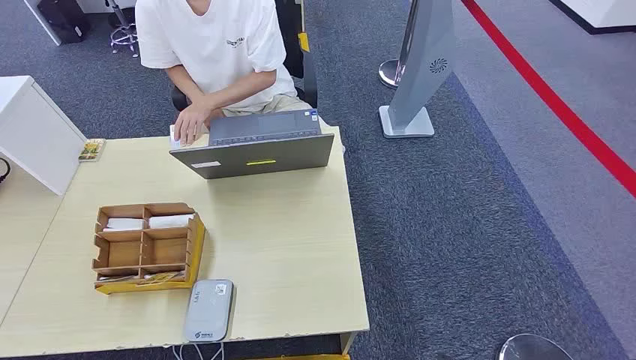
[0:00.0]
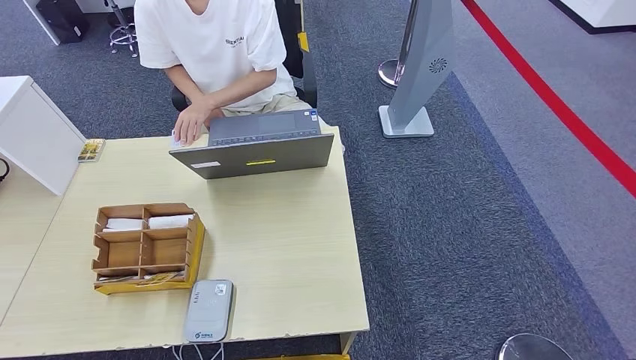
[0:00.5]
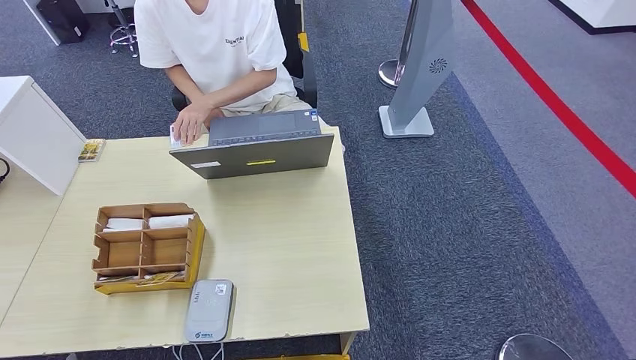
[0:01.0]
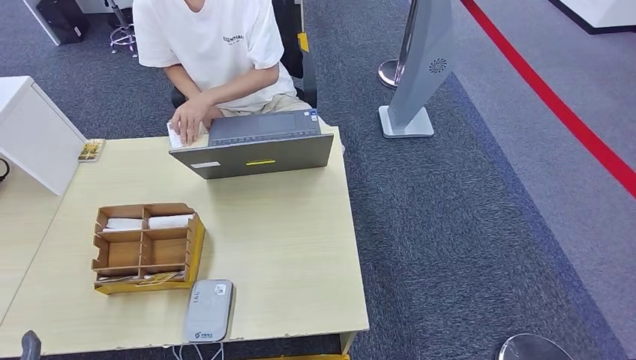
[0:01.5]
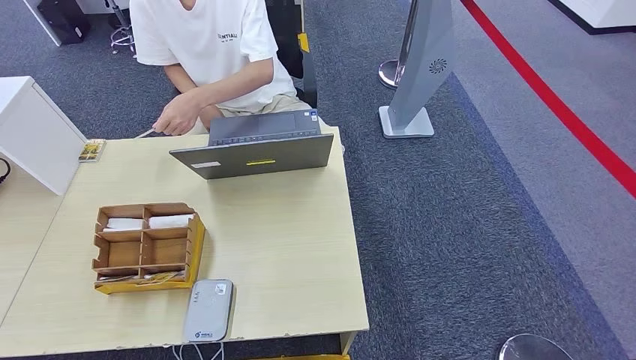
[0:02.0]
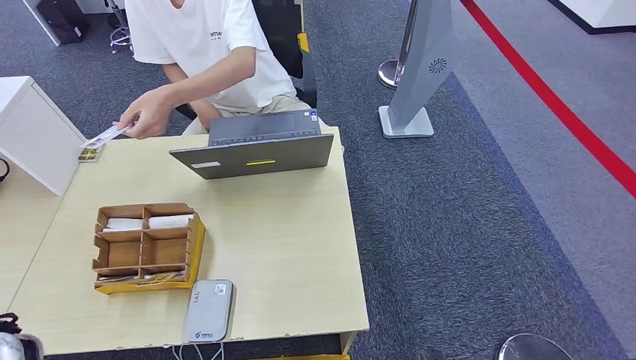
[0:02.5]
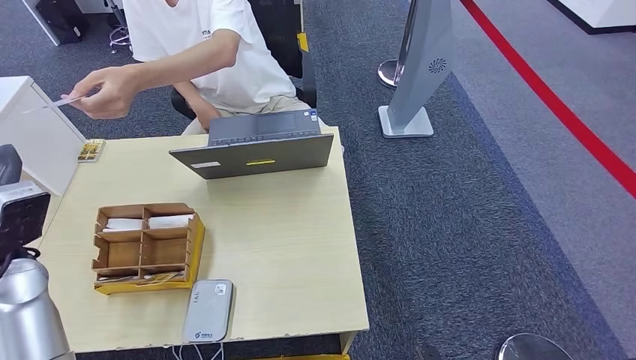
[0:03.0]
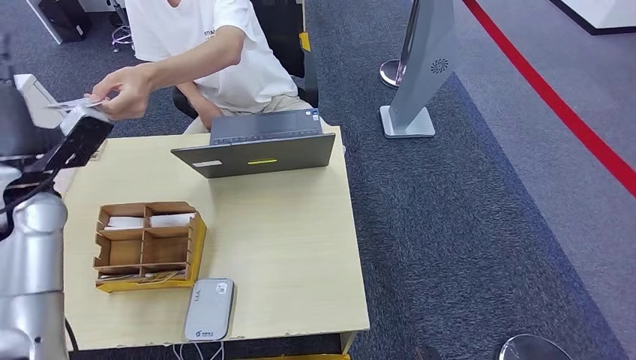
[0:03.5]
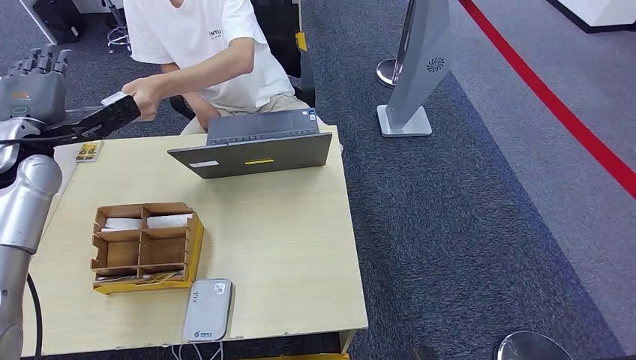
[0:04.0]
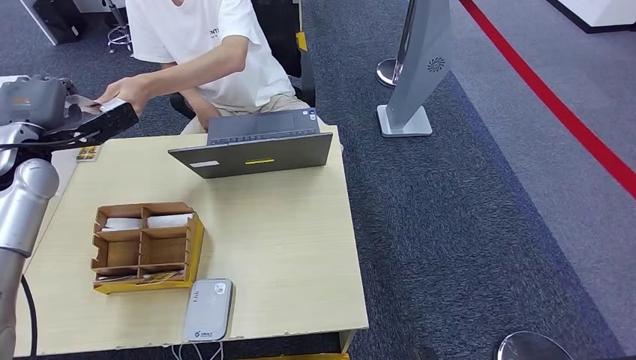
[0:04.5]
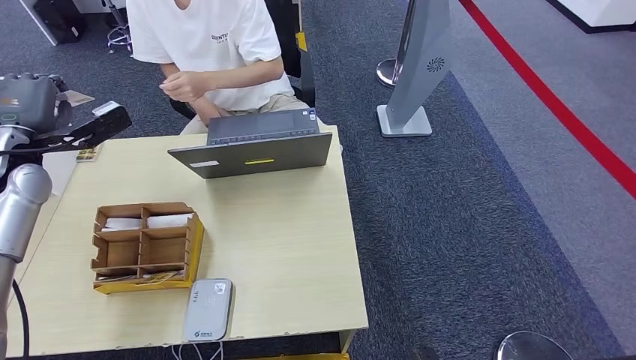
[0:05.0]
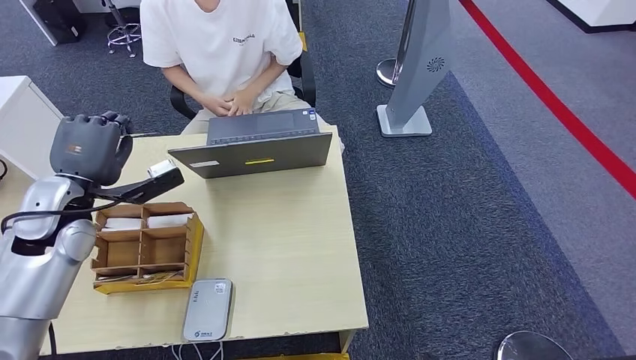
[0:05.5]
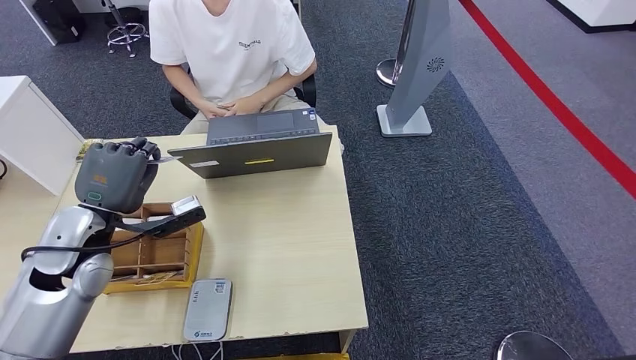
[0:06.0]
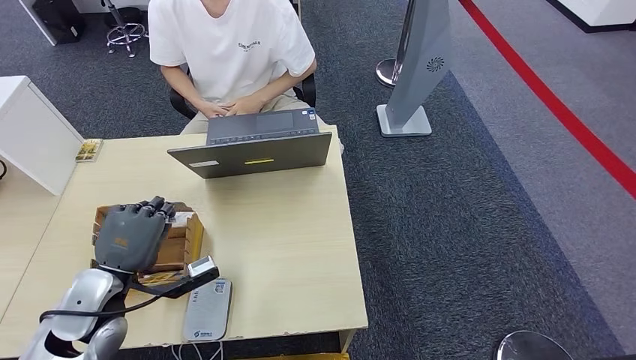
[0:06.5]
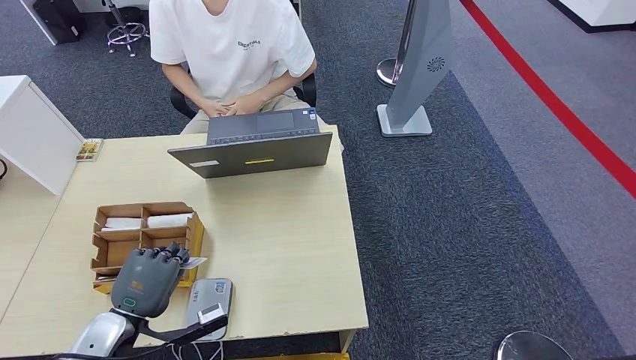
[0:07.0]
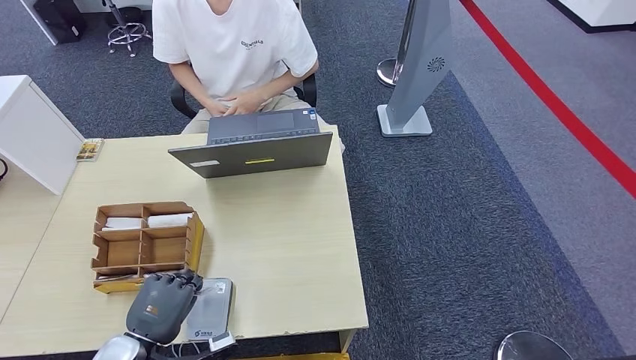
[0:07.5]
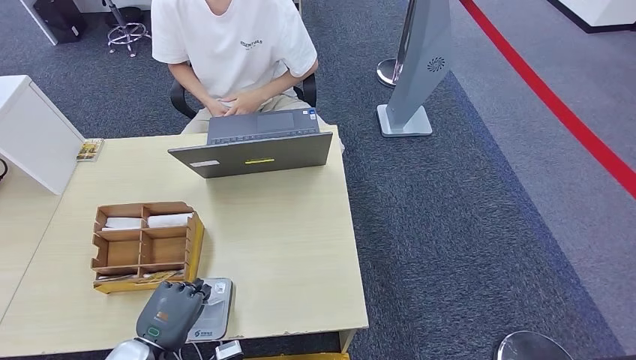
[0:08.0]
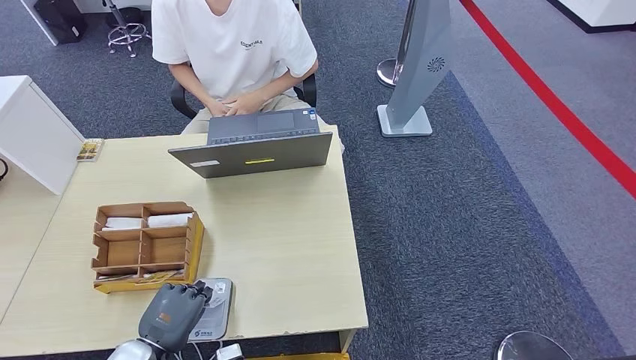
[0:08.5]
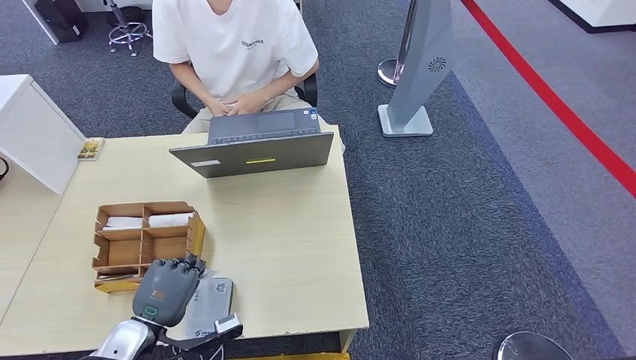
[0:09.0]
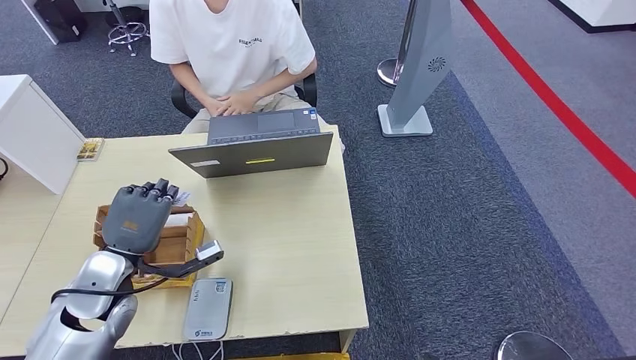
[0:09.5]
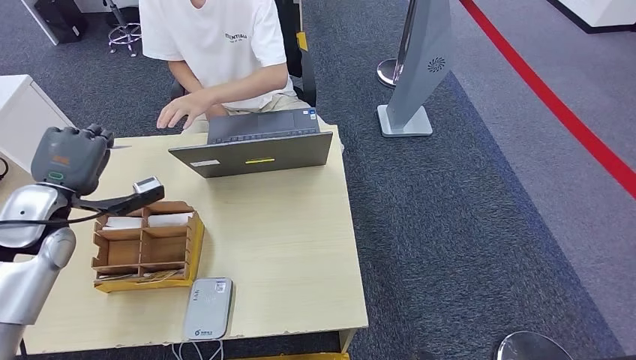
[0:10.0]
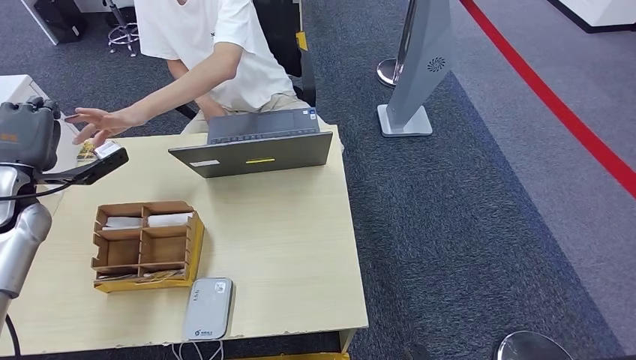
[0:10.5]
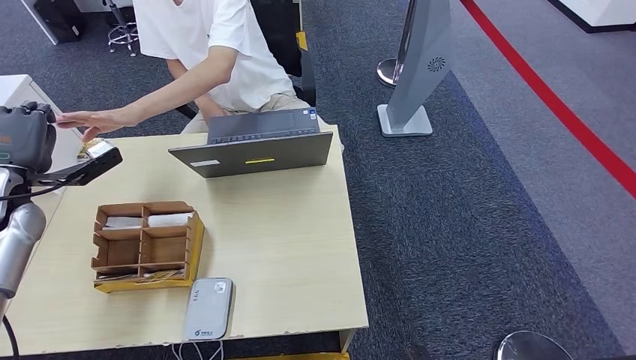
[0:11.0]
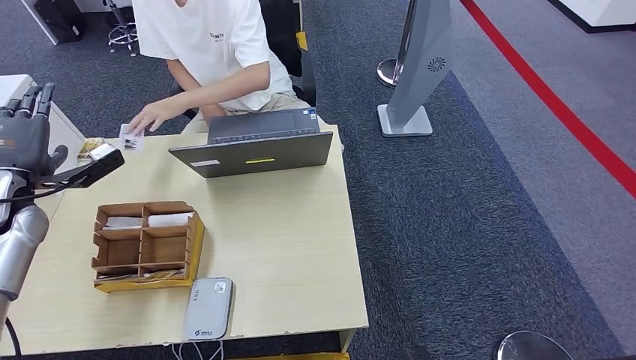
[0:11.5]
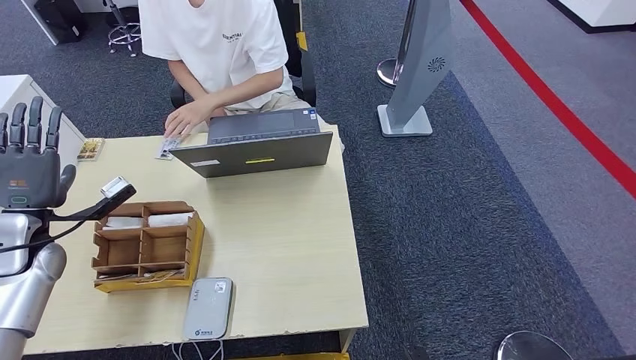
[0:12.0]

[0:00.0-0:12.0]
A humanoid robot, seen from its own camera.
Step, 0:00.0 to 0:05.0: Take the ID card from the person's hand.
Step, 0:05.5 to 0:08.5: Place the ID card on the card reader.
Step, 0:09.0 to 0:11.0: Hand the ID card to the person.
0:04.0 to 0:06.0: The left hand moves backward, downward and to the right, about 15 cm.
0:06.0 to 0:08.0: The left hand shifts about 25 cm backward and downward.
0:08.0 to 0:10.0: The left hand heads forward, upward and to the left, covering some 30 cm.
0:10.0 to 0:12.0: The left hand travels to the left by some 5 cm.

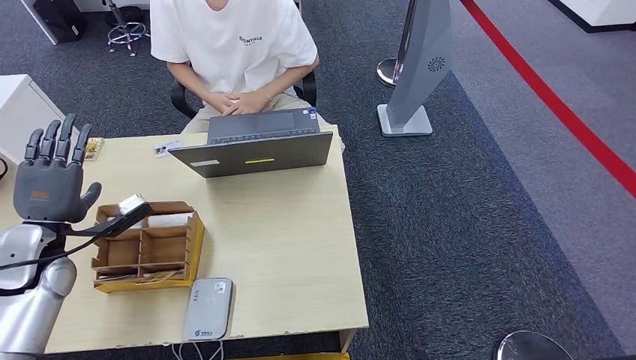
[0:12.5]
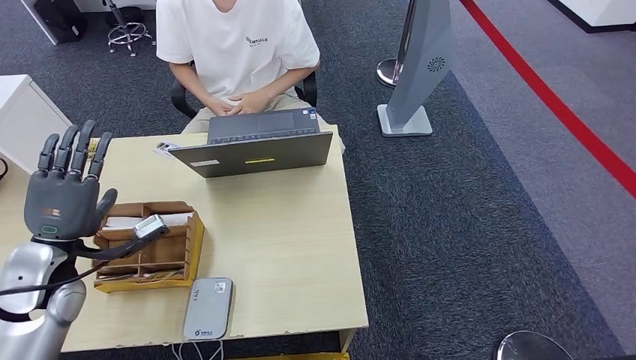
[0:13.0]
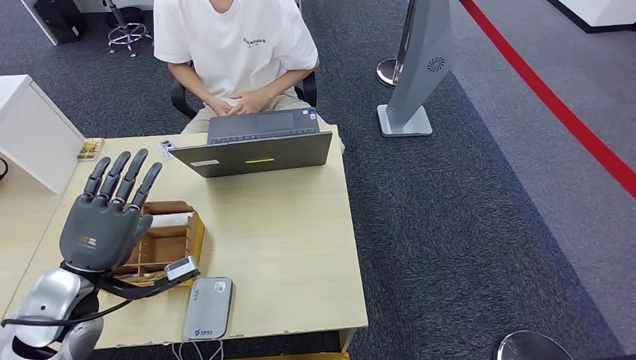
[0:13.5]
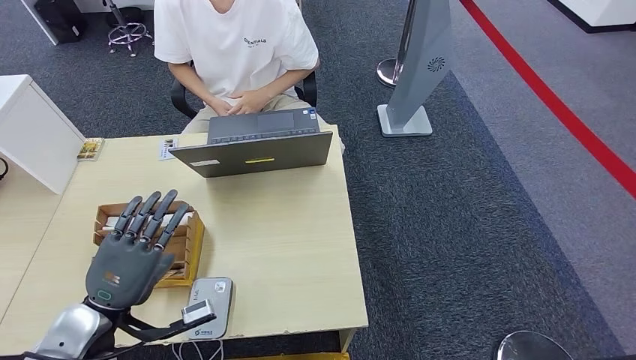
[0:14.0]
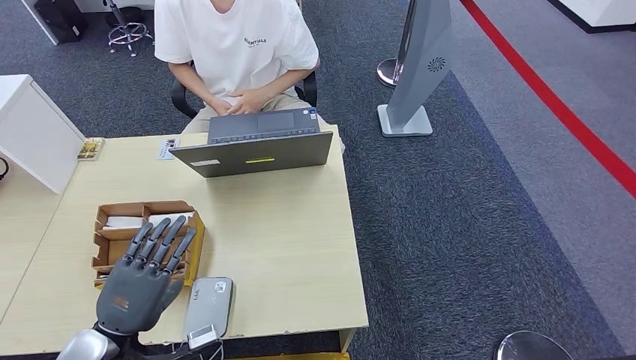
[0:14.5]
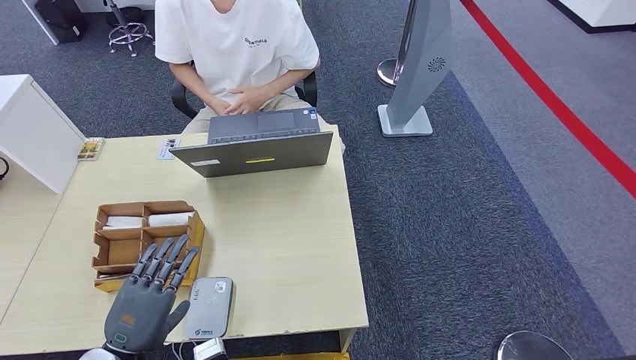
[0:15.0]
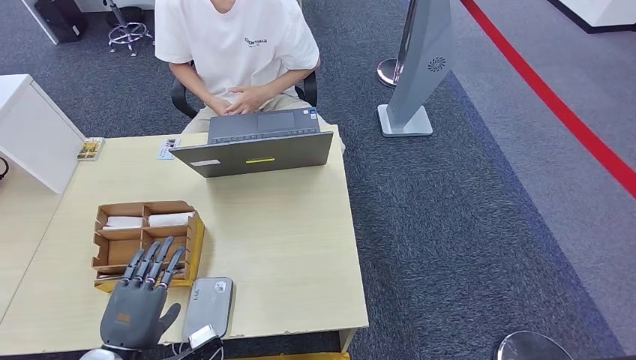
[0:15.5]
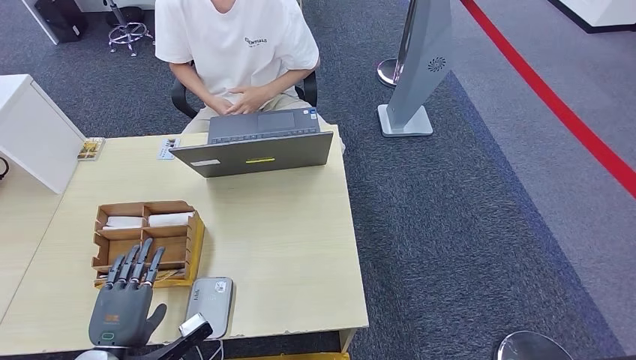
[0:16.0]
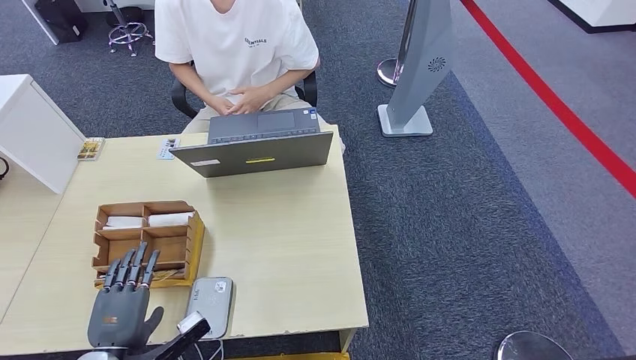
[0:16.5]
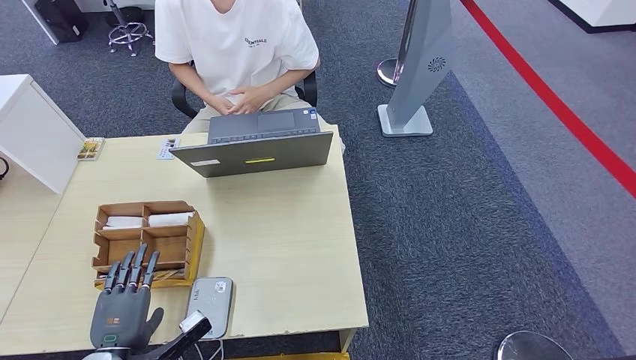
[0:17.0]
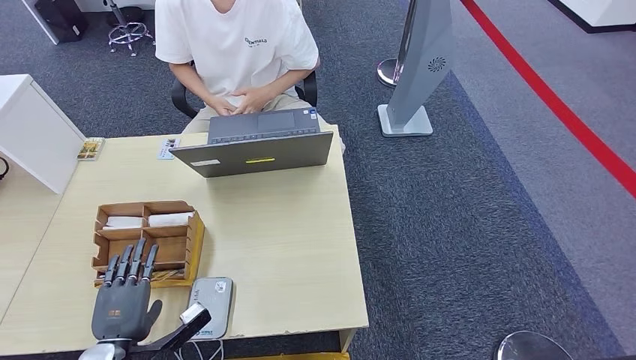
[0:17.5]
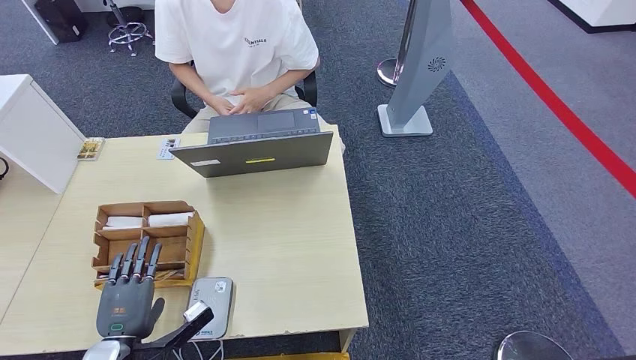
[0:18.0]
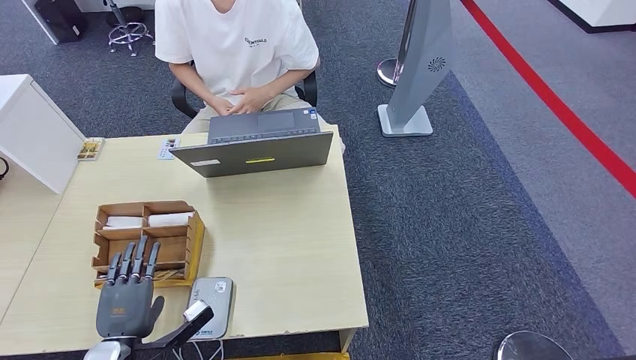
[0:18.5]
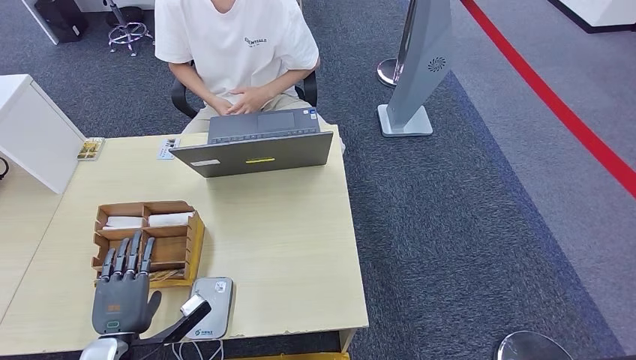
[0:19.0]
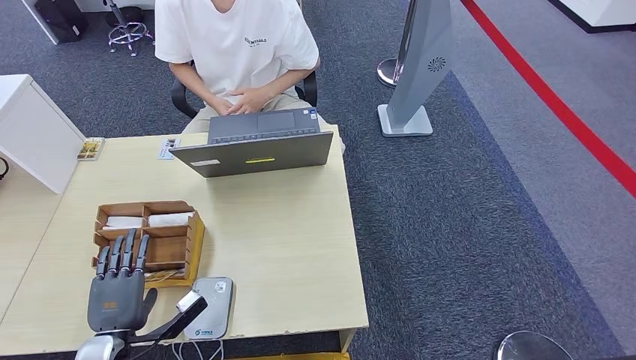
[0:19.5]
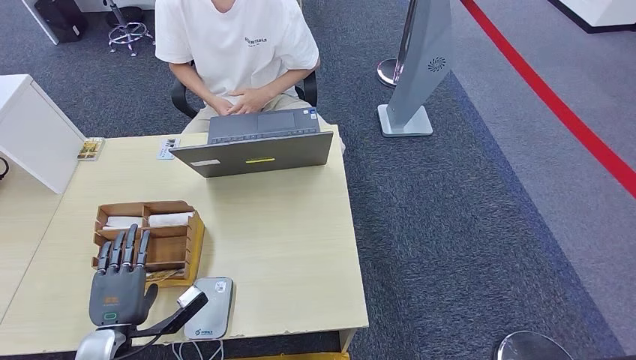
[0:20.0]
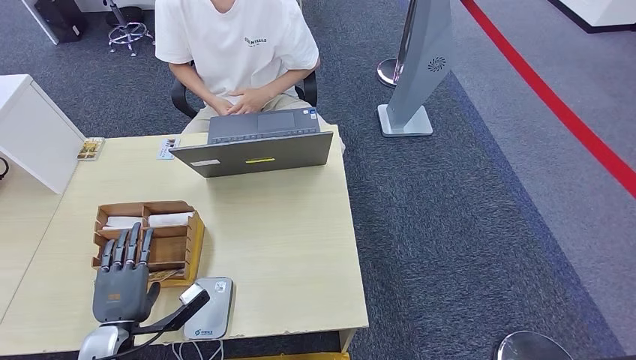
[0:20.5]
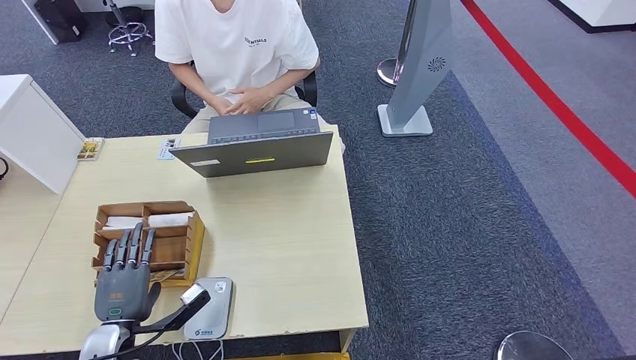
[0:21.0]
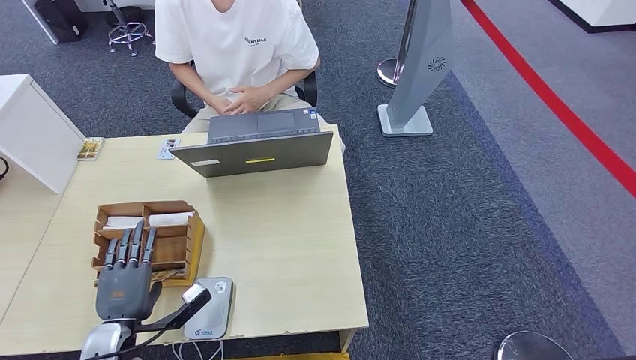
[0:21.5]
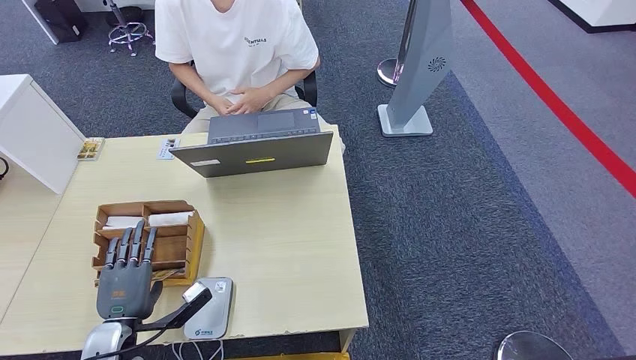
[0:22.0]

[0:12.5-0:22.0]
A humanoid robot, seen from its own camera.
0:12.5 to 0:14.5: The left hand shifts roughly 20 cm backward and to the right.
0:14.5 to 0:16.5: The left hand goes approximately 5 cm downward.
0:16.5 to 0:20.0: There are only small adjustments of the hands.
0:20.0 to 0:22.0: Neither hand changes place.
